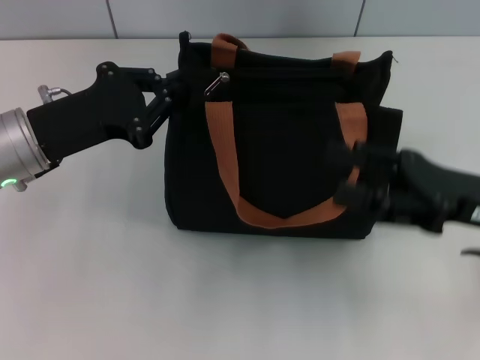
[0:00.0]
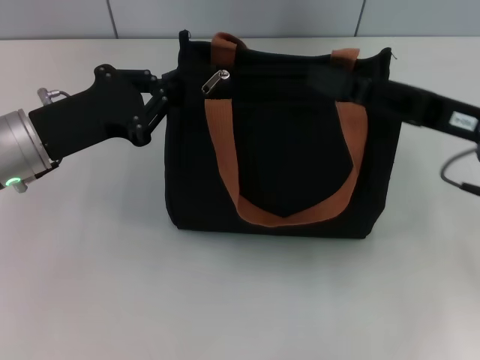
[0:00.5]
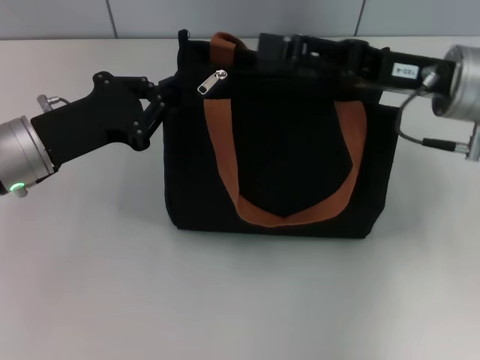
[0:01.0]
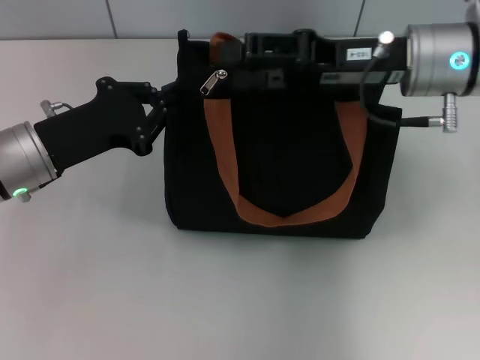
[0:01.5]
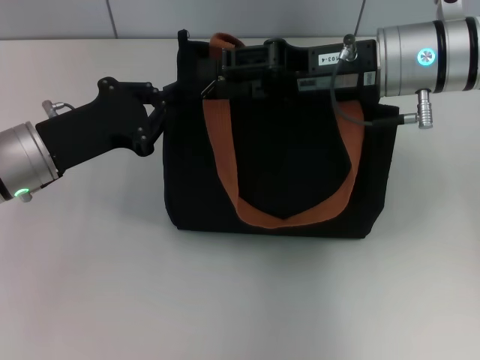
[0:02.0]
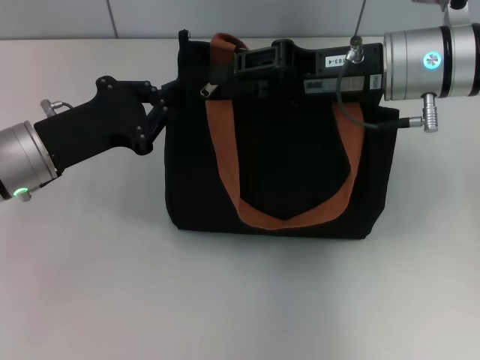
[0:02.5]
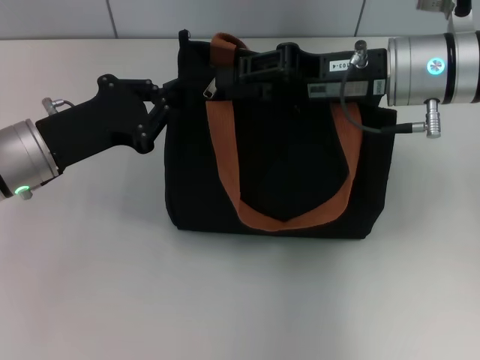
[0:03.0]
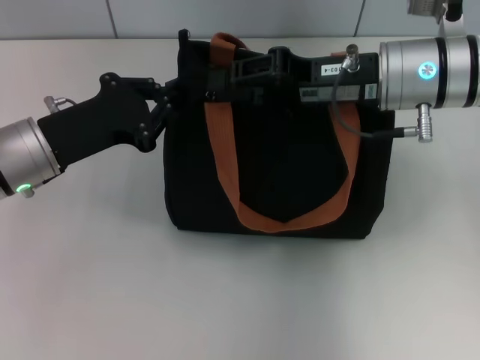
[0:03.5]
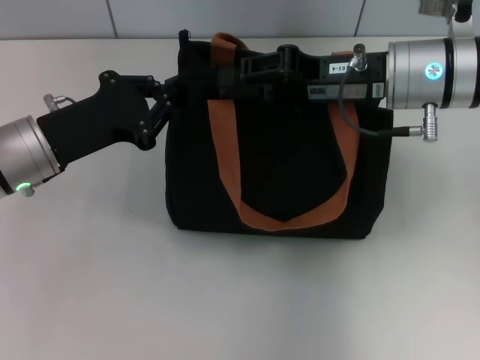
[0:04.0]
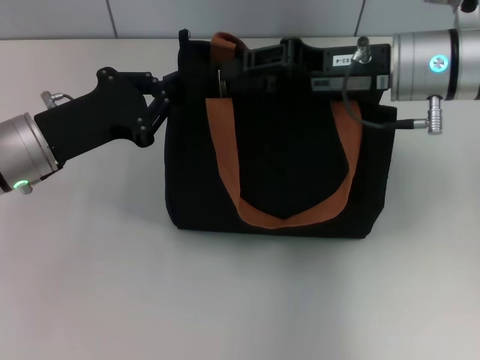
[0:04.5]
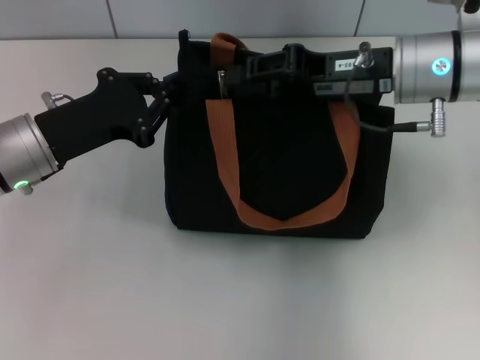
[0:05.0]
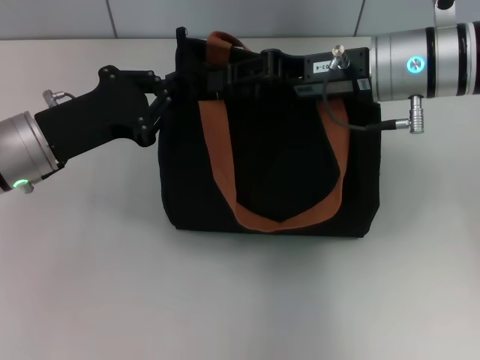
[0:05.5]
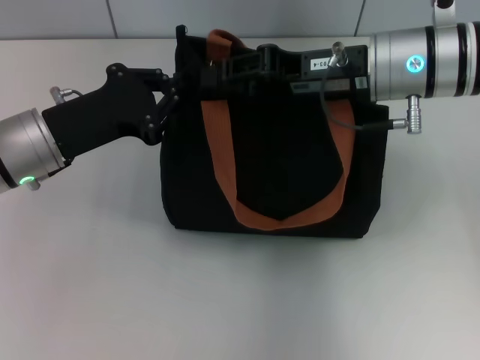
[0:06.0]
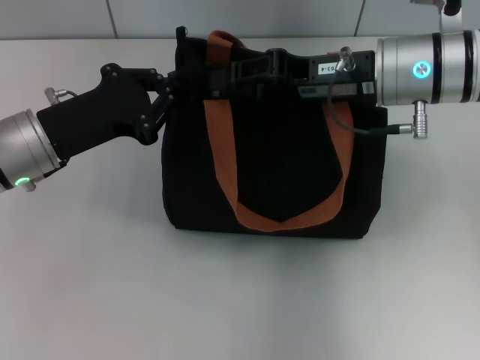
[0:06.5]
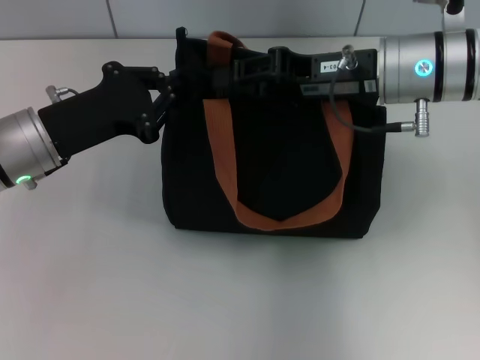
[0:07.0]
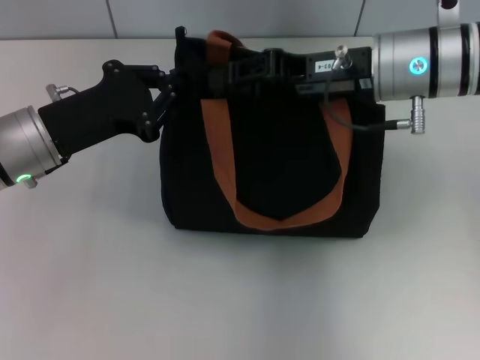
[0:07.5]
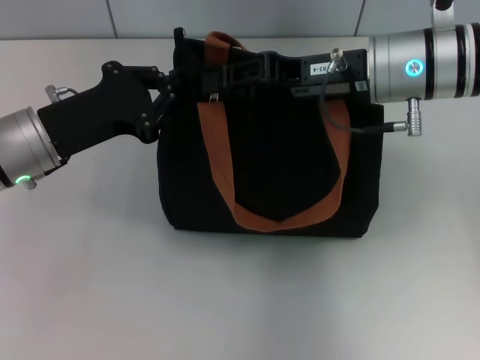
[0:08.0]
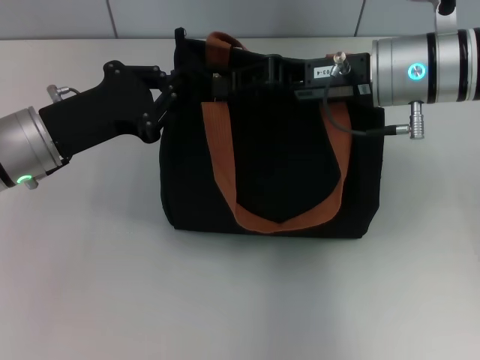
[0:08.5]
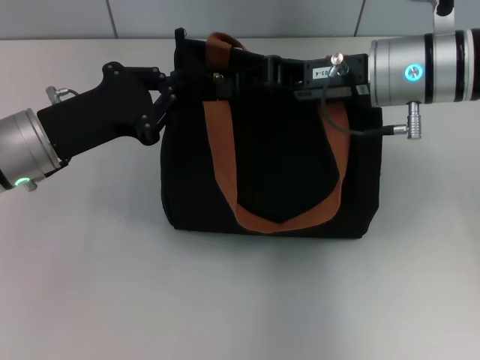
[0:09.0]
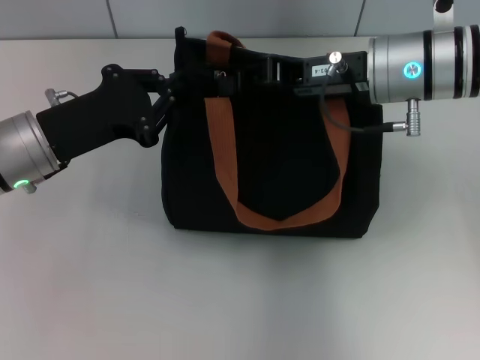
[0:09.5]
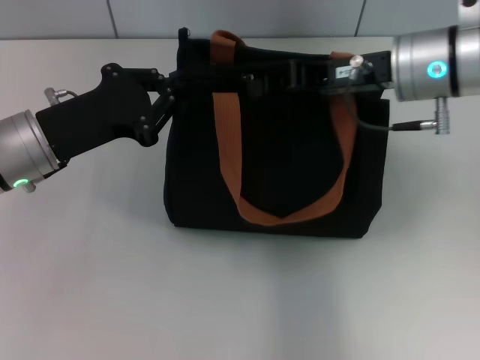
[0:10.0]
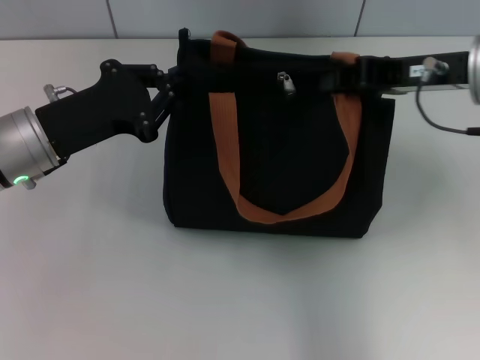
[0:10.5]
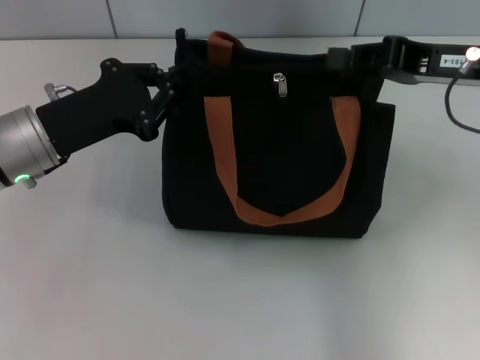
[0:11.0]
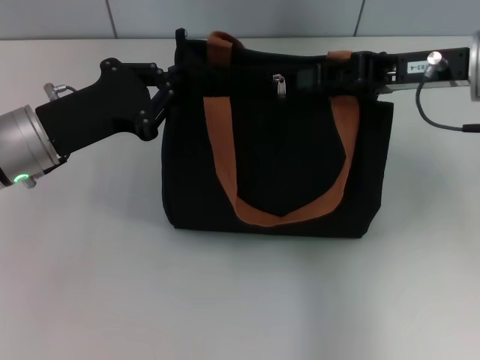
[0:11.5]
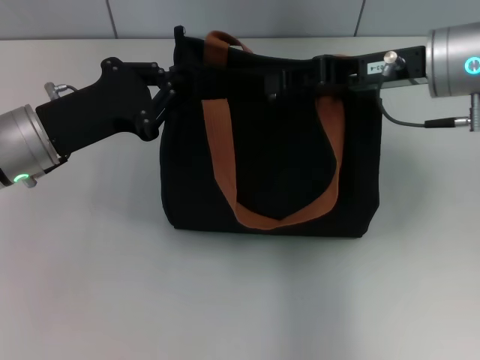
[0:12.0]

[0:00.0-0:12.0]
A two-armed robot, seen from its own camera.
0:00.0 to 0:02.0: The right gripper goes some 15 cm forward, to the left and upward.
0:02.0 to 0:04.0: The right gripper closes its fingers.
0:04.0 to 0:06.0: The grippers stay close to where they were, moving slightly.
0:06.0 to 0:08.0: Both grippers stay put.
0:08.0 to 0:10.0: The right gripper closes its fingers.
0:10.0 to 0:12.0: The right gripper opens its fingers.

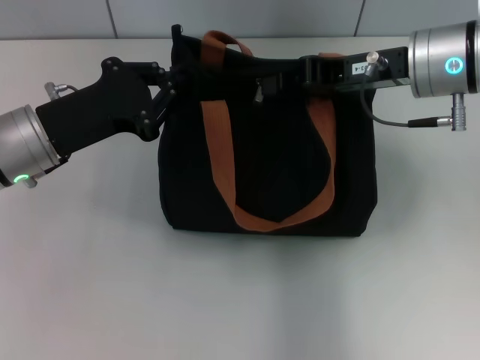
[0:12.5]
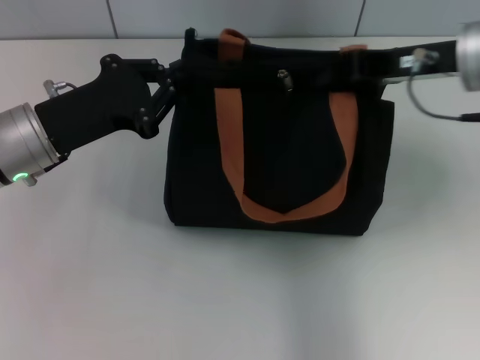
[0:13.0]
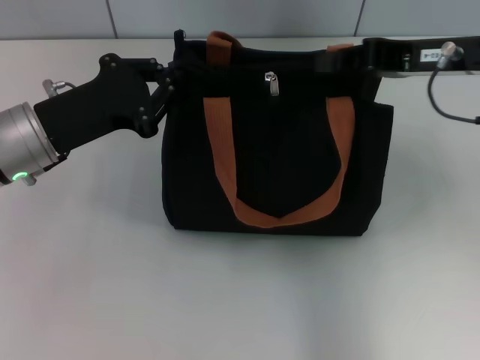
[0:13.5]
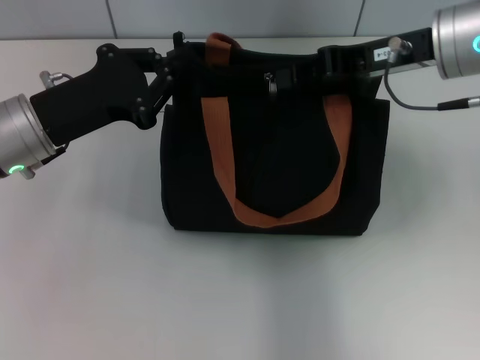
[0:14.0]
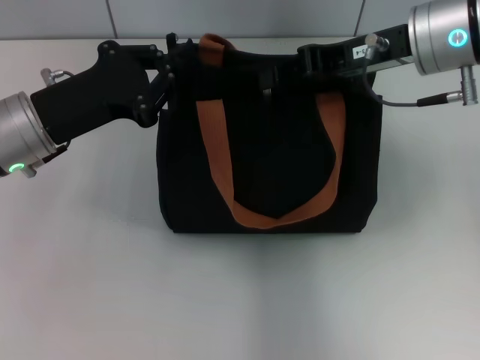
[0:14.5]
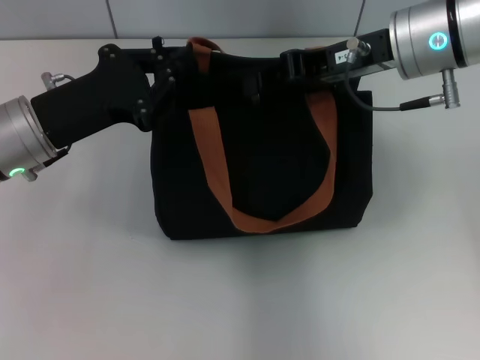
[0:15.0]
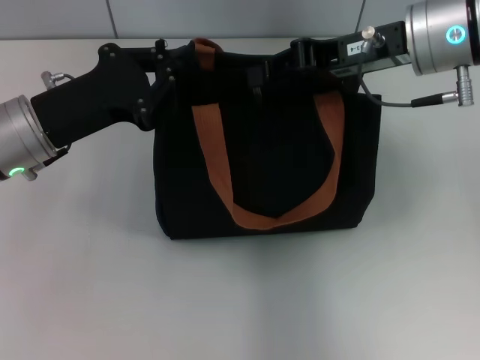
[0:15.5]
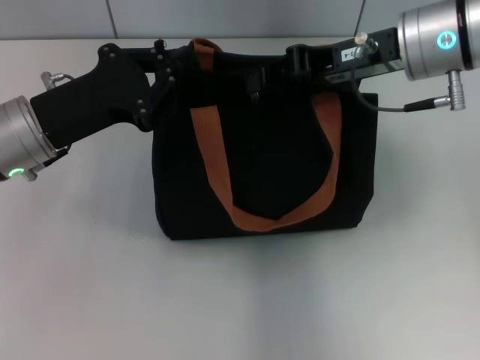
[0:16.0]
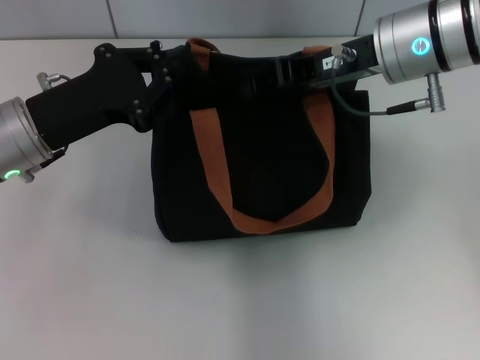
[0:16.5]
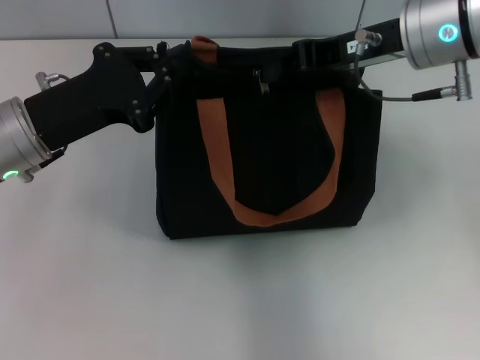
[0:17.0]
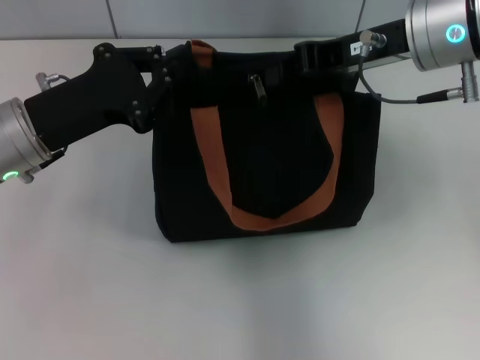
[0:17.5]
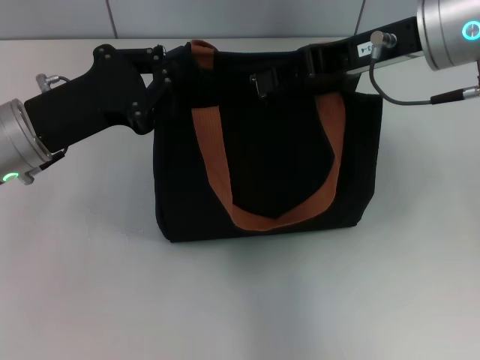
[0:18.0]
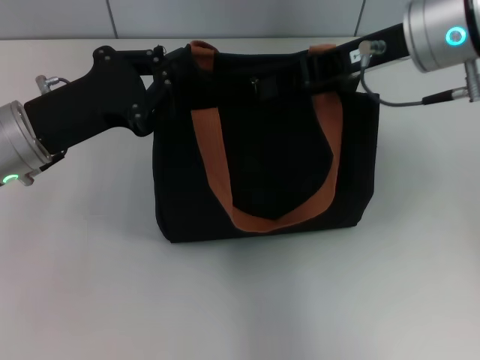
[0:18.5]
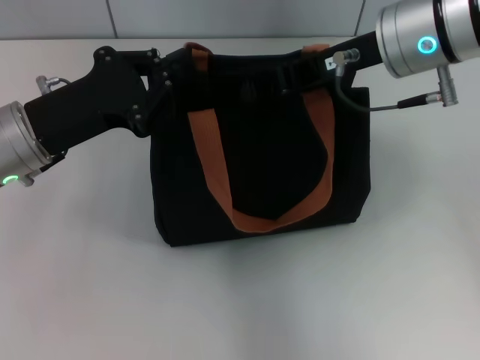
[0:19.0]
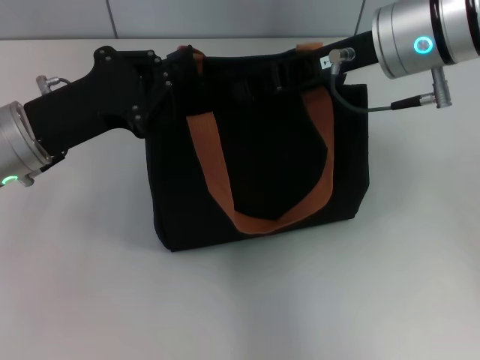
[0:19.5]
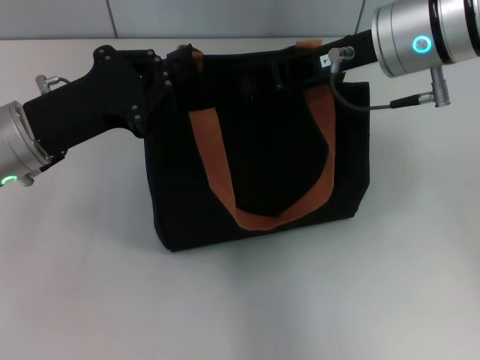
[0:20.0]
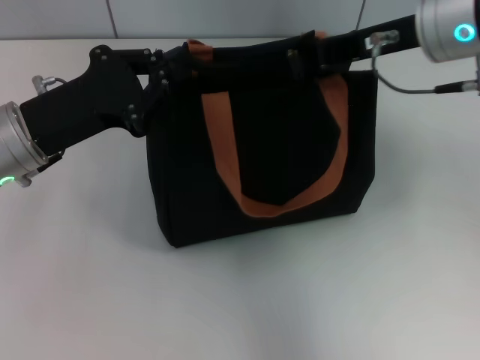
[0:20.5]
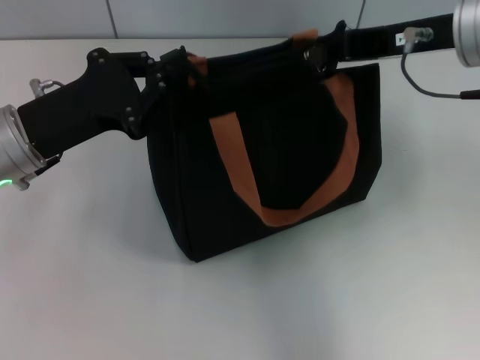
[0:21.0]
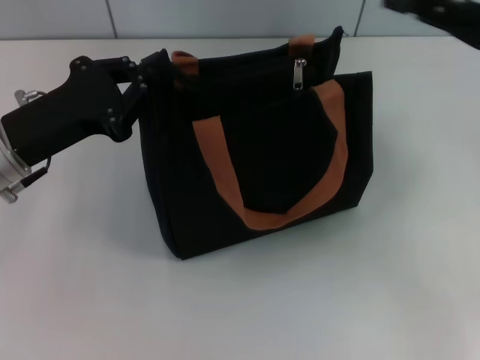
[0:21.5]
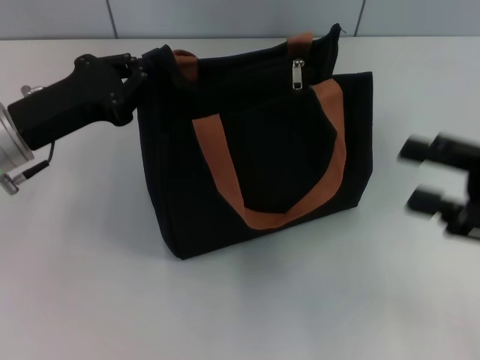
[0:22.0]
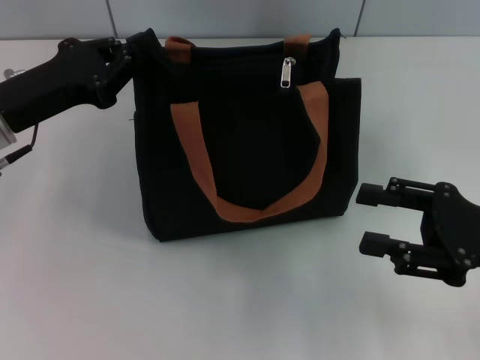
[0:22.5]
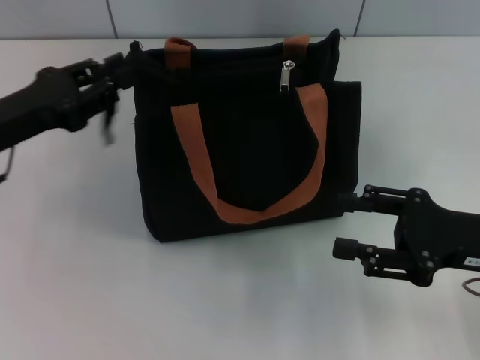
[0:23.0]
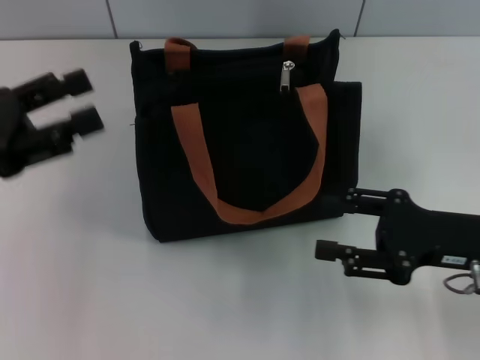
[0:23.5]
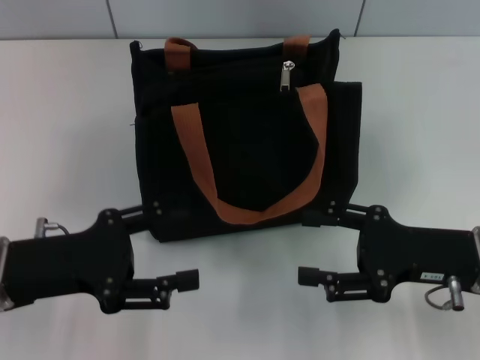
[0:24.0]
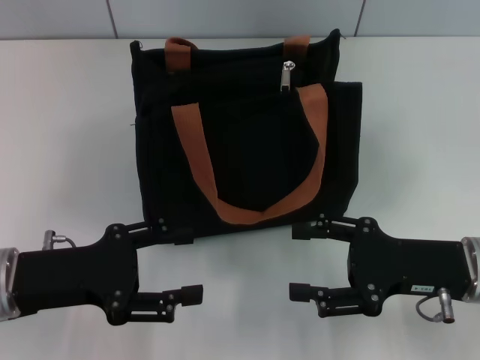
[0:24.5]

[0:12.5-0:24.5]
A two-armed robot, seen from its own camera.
Step, 0:12.5 to 0:21.0: Pull up the zipper with your right hand.
Step, 0:21.5 to 0:23.0: Grab the zipper with your left hand.
0:14.5 to 0:20.5: There are only small adjustments of the grippers.
0:20.5 to 0:22.5: The right gripper moves downward, backward and to the right, approximately 20 cm, and opens.
0:22.5 to 0:24.5: The left gripper goes about 10 cm backward and downward, and opens its fingers, while the right gripper shifts by roughly 5 cm.
